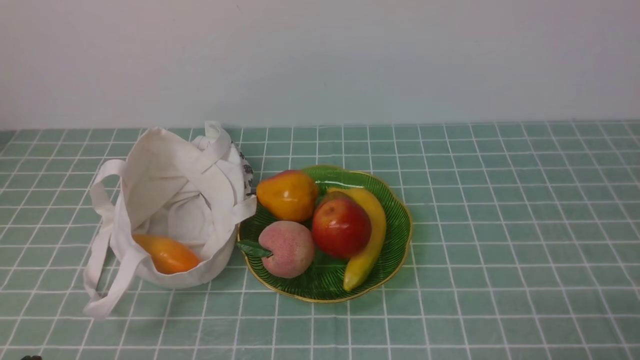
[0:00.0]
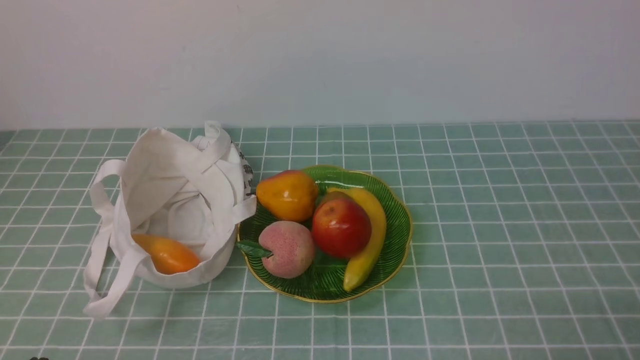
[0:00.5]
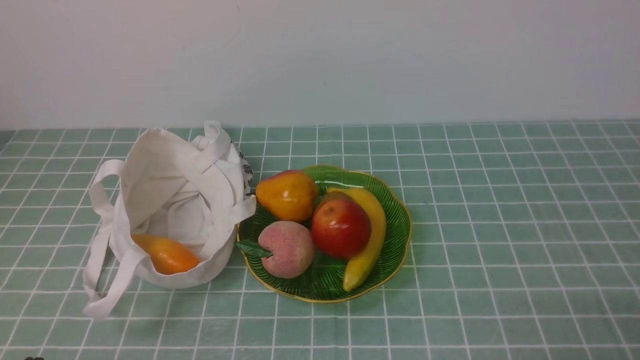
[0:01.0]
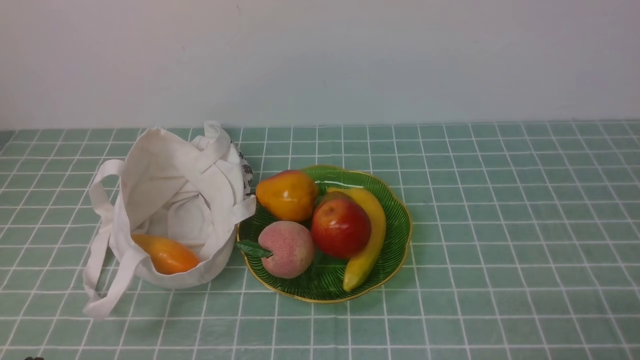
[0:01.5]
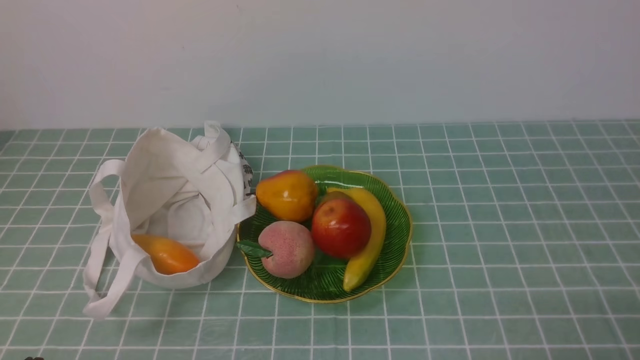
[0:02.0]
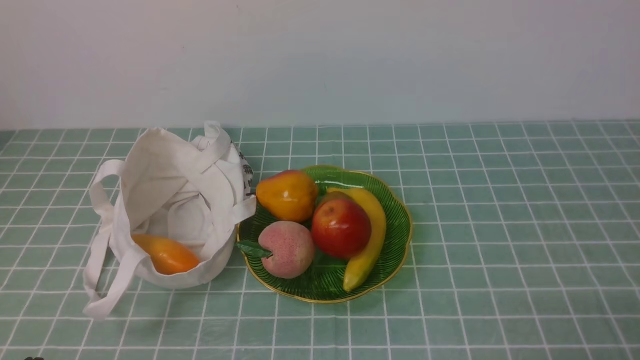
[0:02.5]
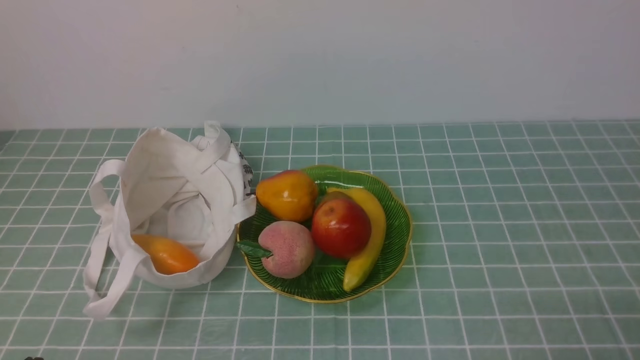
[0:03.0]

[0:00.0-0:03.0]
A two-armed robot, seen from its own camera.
0:00.0 to 0:03.0: Neither gripper changes place.
